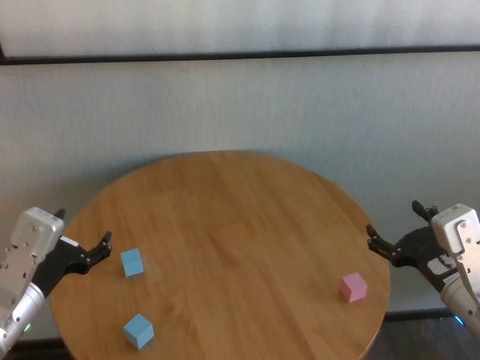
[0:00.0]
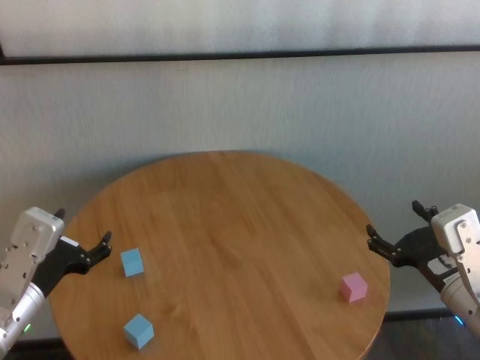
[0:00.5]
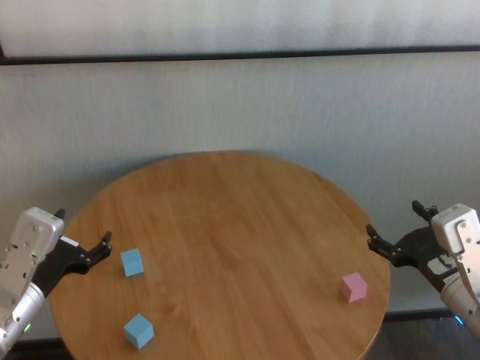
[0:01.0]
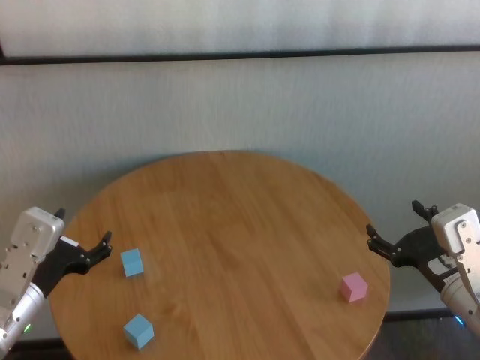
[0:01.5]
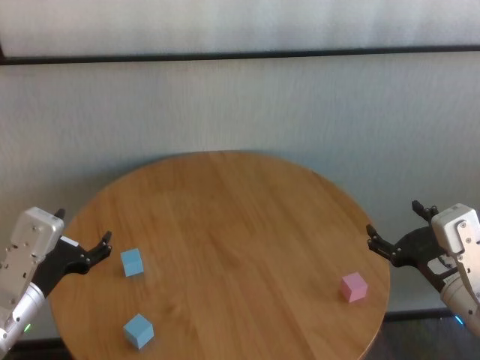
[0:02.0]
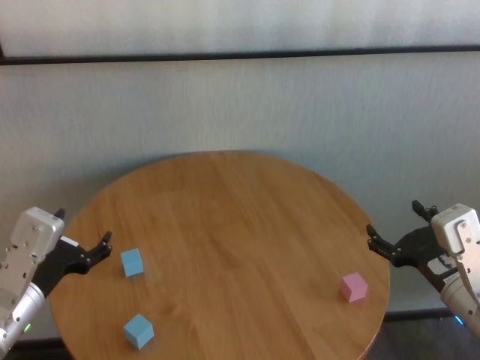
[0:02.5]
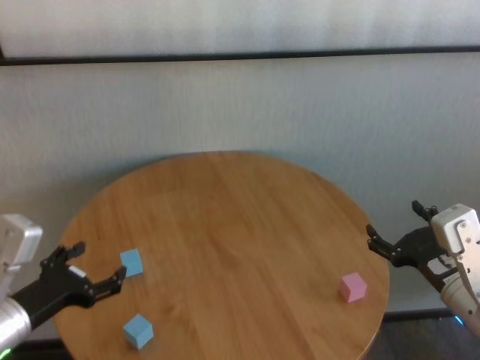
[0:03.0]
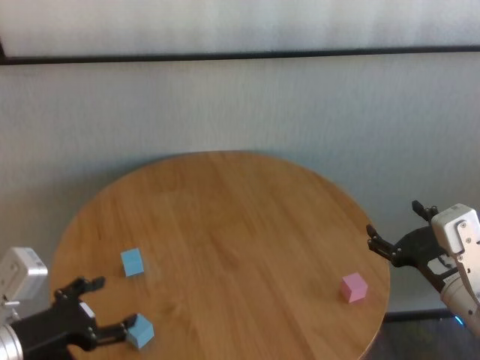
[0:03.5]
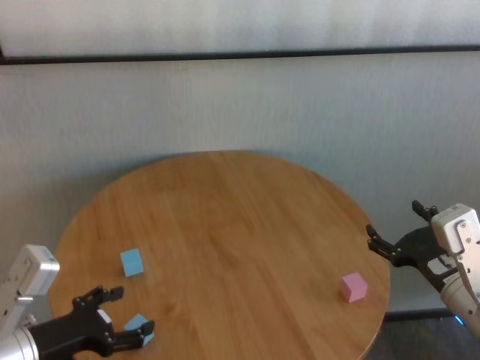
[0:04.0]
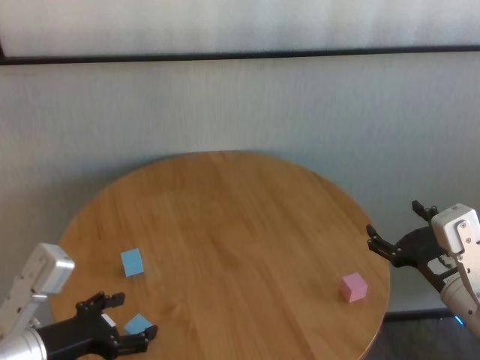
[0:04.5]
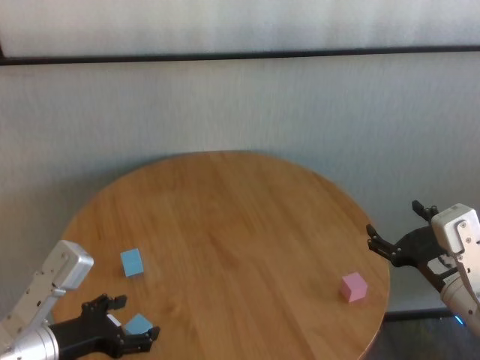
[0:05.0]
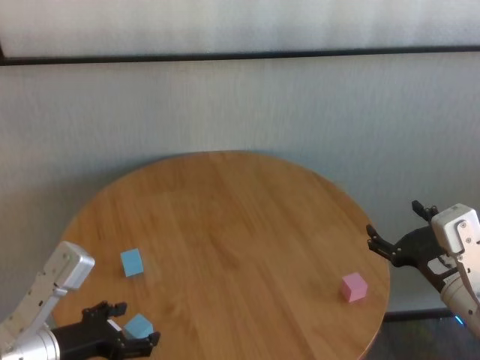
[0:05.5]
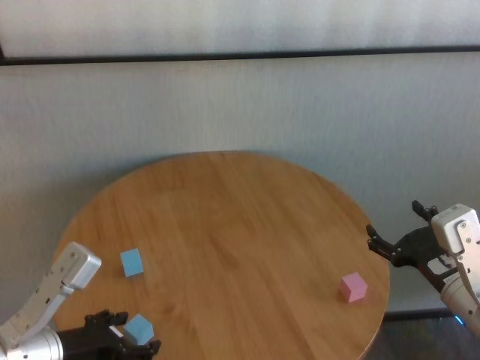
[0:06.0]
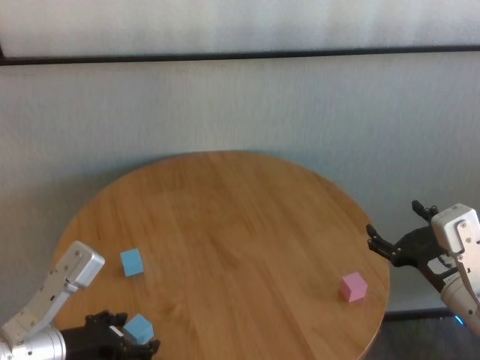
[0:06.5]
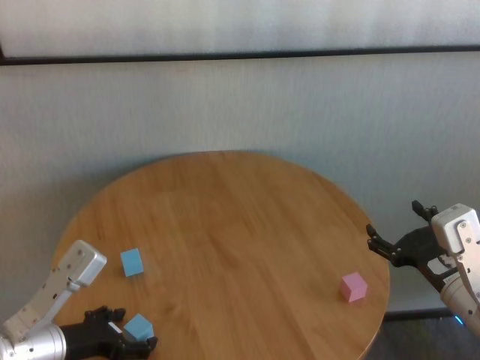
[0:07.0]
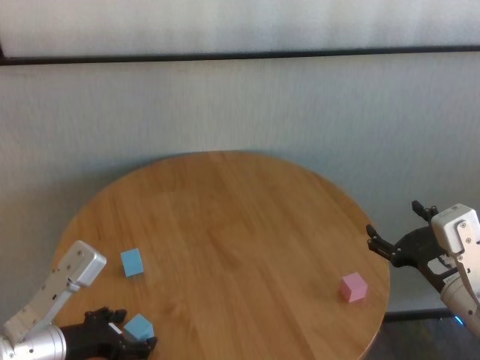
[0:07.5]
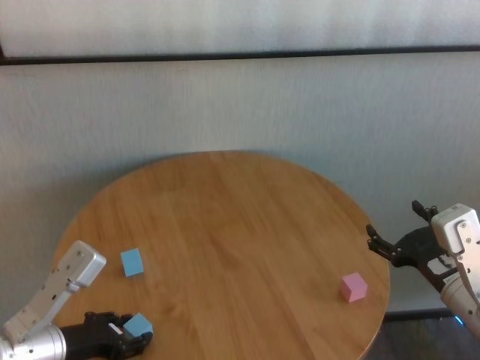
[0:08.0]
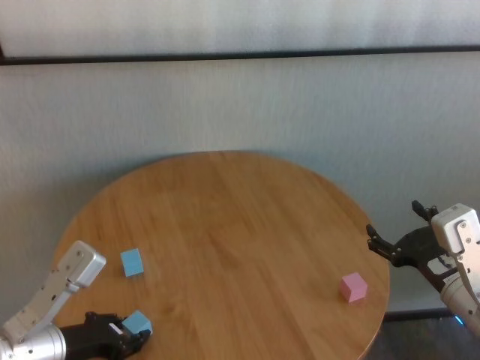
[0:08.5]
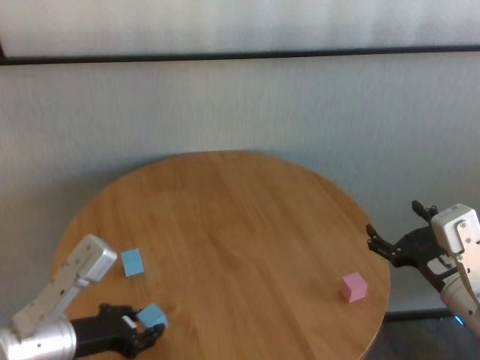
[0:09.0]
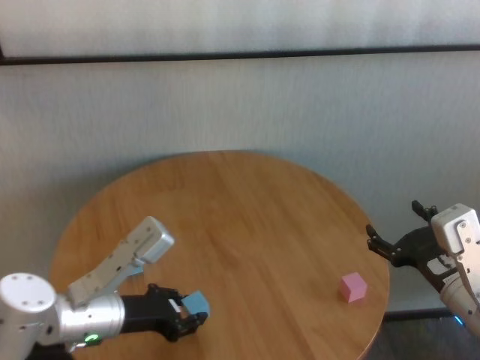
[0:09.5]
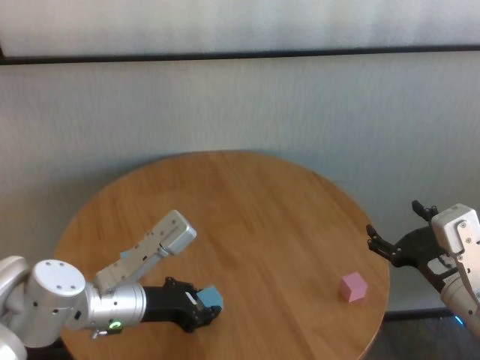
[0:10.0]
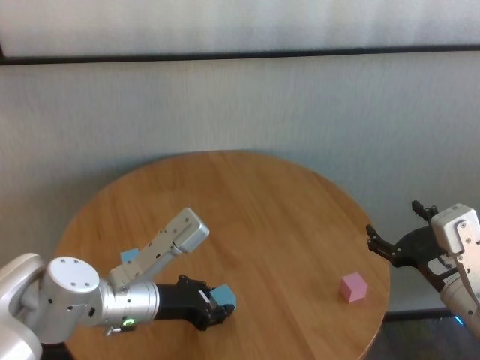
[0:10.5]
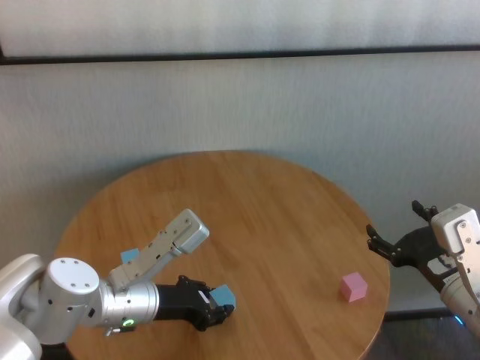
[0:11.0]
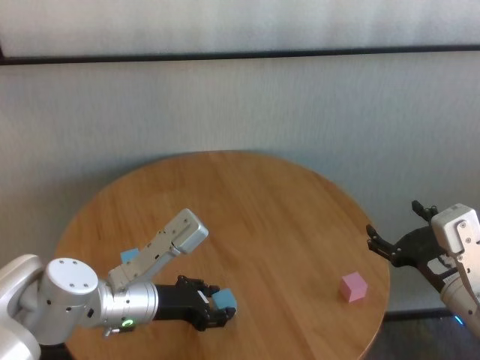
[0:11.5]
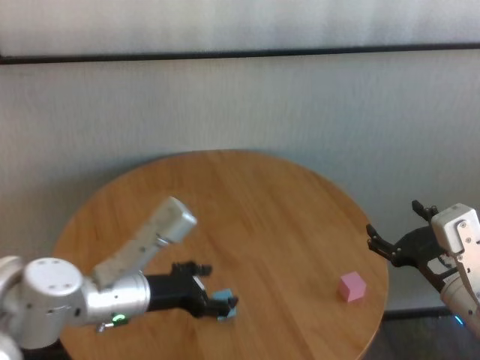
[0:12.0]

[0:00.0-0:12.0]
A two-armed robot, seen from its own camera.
Task of the whole recording: stack building blocks on the table.
Step, 0:00.0 to 0:08.0: Grasp the blue building block with left gripper.
Step, 0:08.5 to 0:11.5: Place the blue building block in the center of table with left gripper.

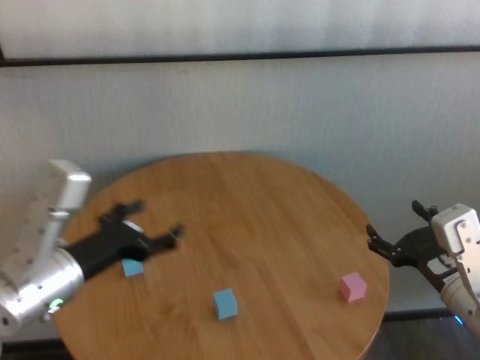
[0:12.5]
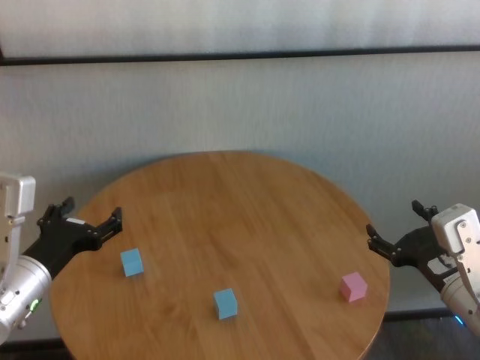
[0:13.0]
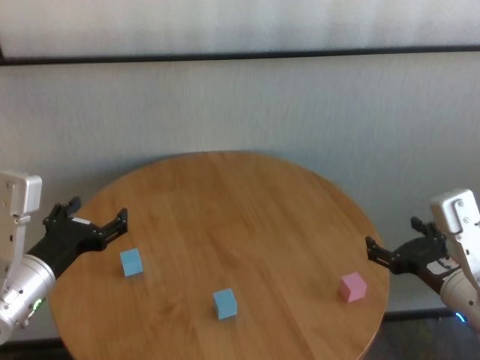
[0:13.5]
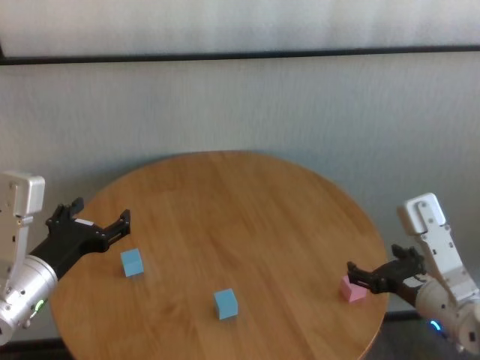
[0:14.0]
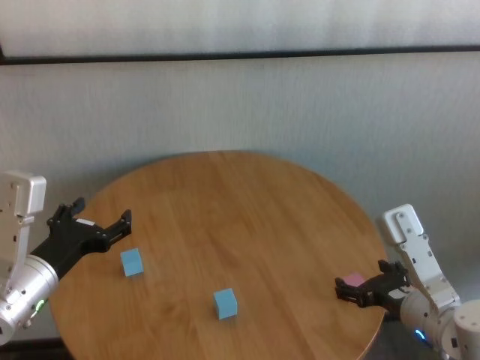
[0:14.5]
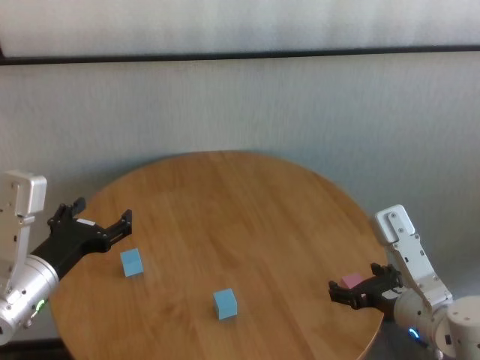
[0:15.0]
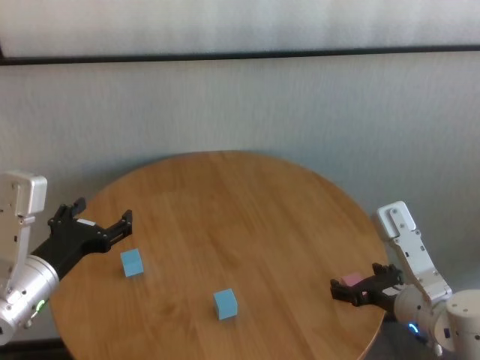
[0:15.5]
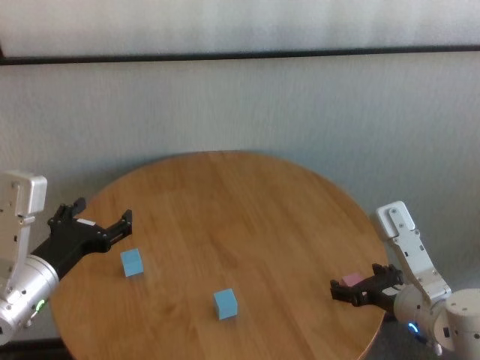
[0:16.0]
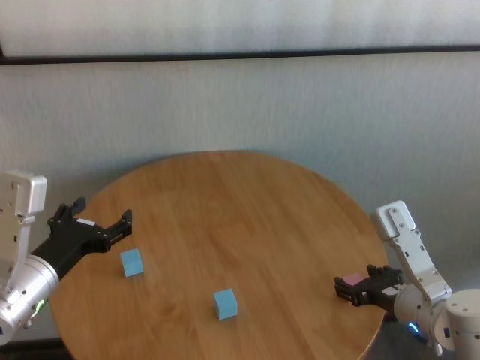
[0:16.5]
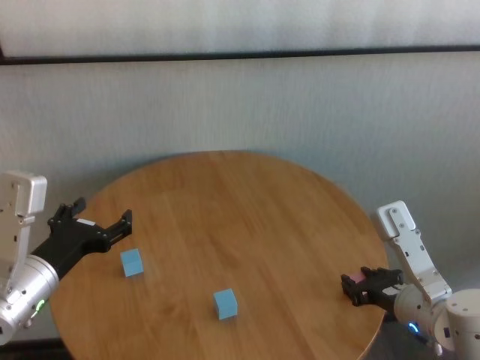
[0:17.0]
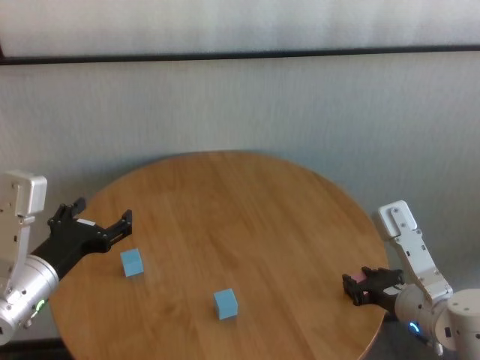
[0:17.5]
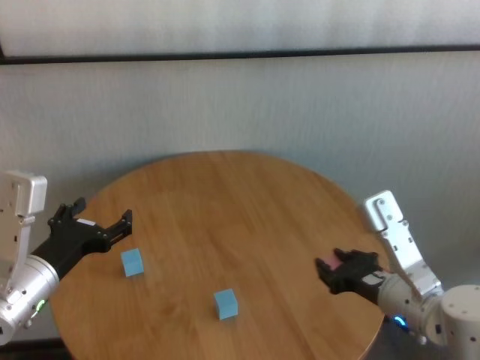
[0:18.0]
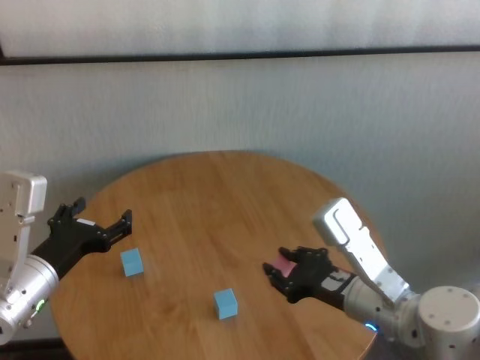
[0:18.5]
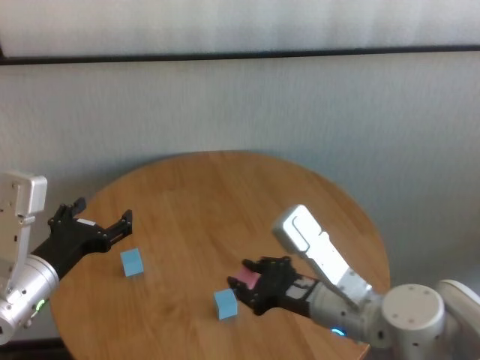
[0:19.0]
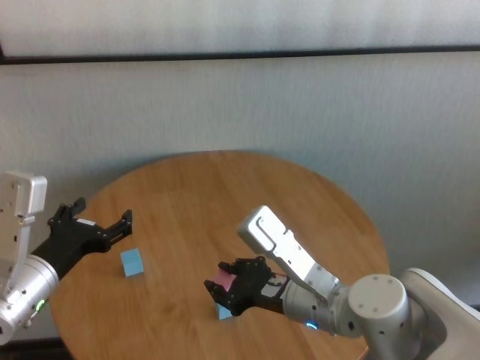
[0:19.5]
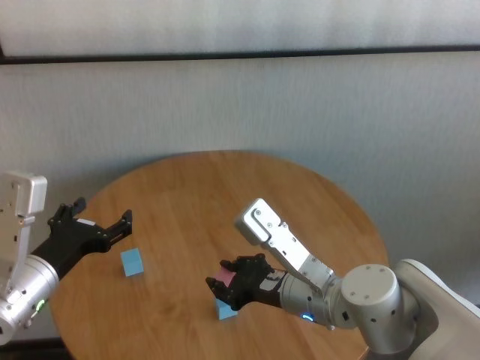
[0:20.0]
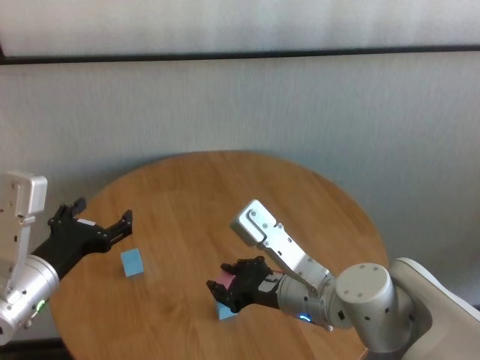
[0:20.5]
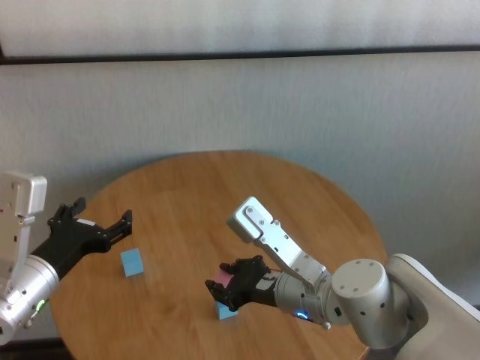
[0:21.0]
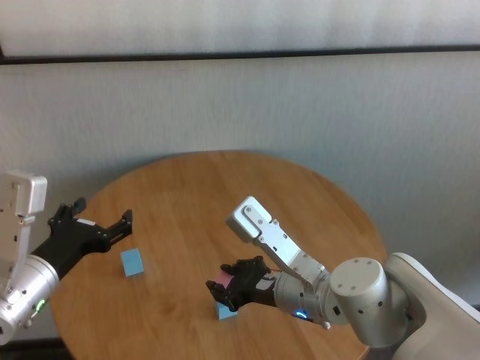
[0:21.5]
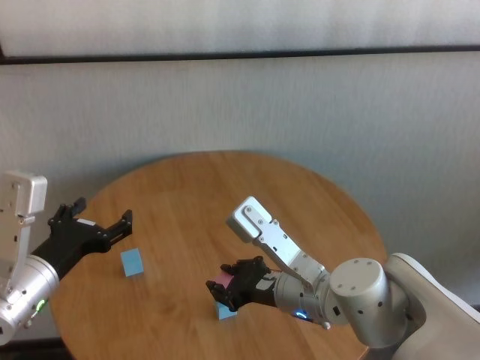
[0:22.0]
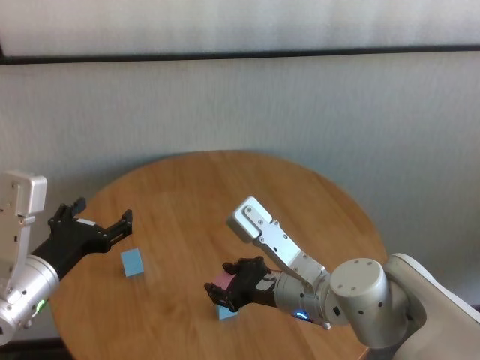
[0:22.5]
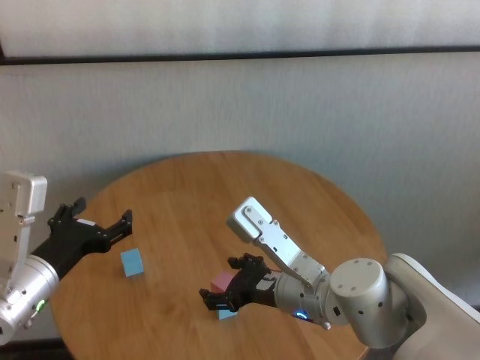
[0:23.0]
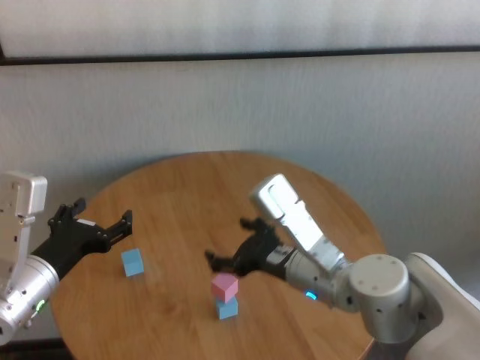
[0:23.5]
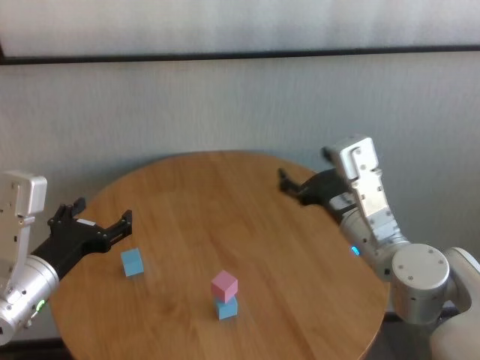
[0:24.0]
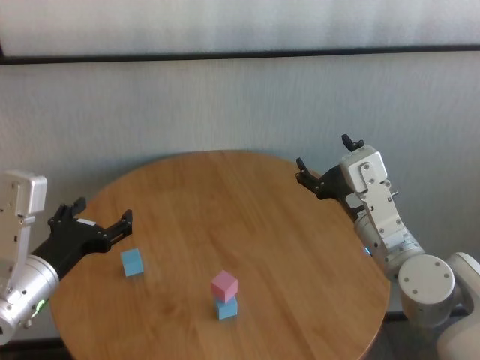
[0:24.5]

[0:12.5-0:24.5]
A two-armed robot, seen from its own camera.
Task of the whole recording: stack building blocks on the table.
Step, 0:12.5 to 0:17.0: Grasp the pink building block with right gripper.
Step, 0:17.5 to 0:22.5: Place the pink building block on the blue building blocks with right gripper.

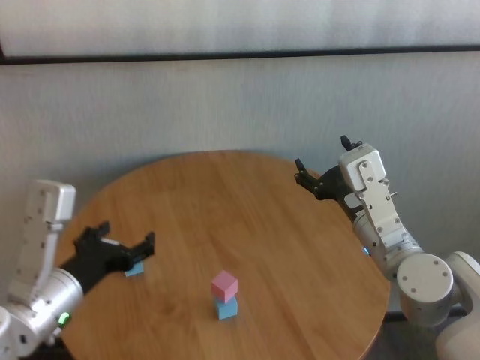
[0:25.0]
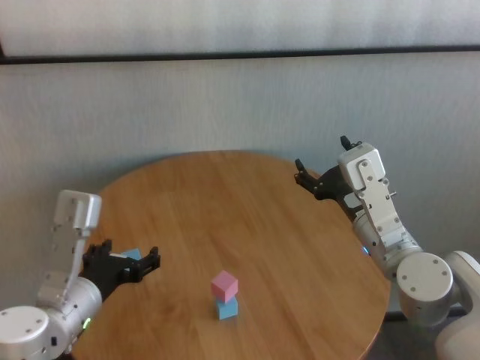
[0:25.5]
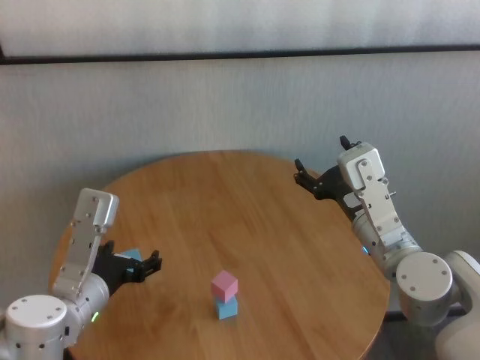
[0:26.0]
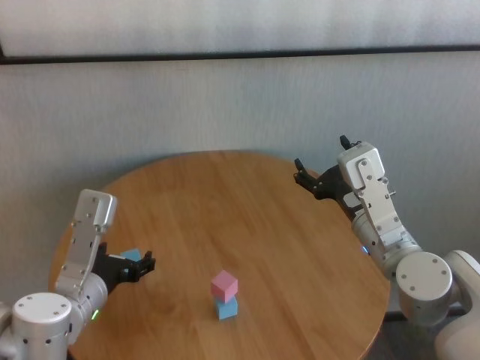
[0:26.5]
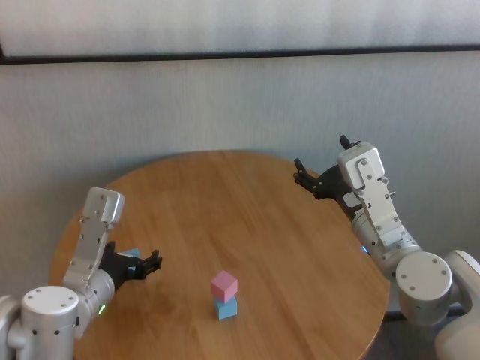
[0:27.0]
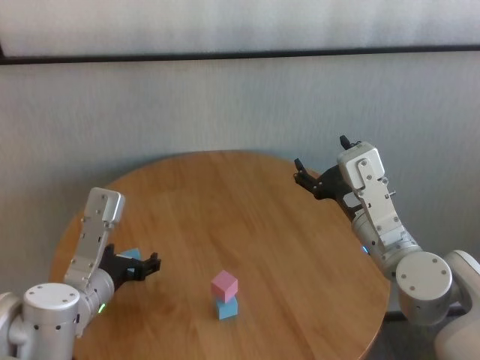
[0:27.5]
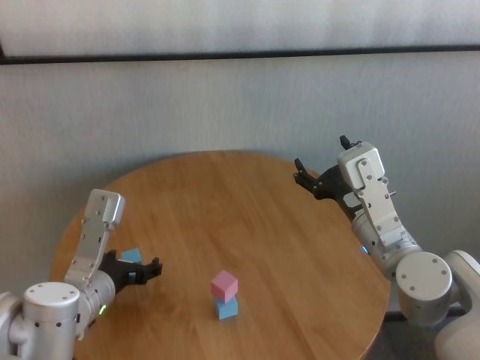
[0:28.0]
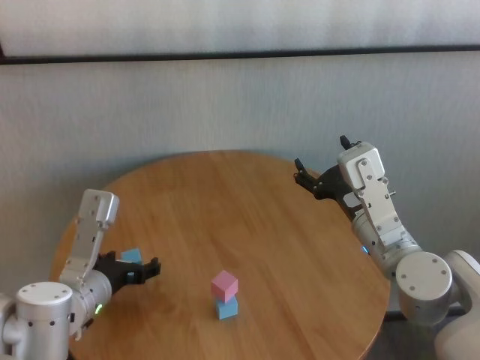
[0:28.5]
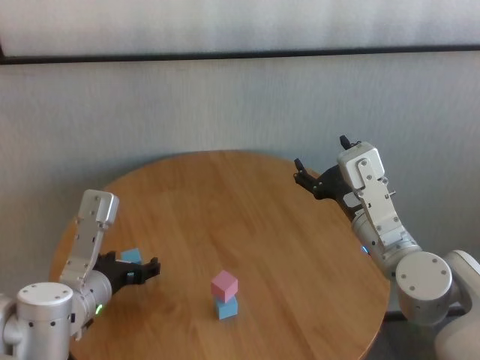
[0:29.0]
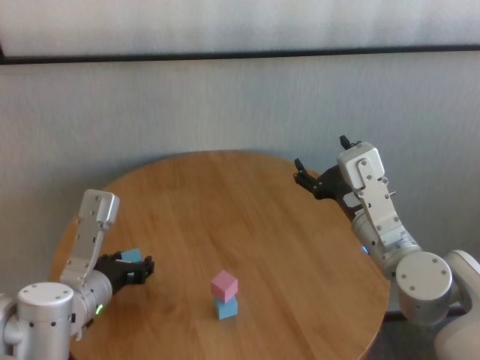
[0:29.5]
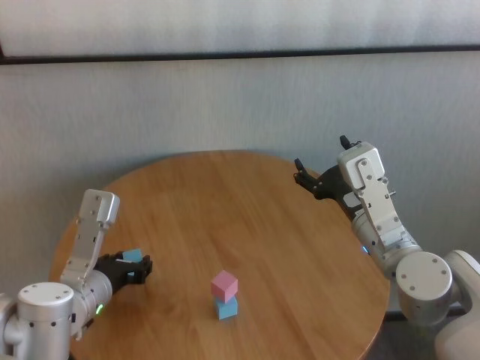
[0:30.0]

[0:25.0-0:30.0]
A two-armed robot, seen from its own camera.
Task of the whole recording: stack building blocks on the table.
Step, 0:25.0 to 0:30.0: Grasp the blue building block with left gripper.
